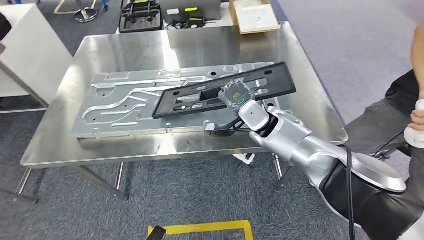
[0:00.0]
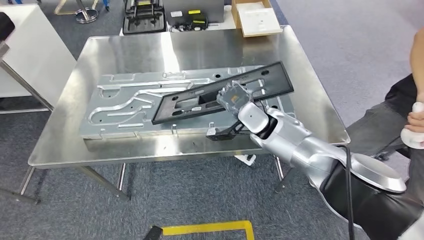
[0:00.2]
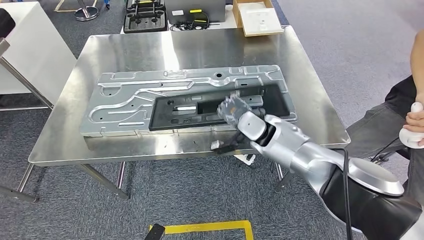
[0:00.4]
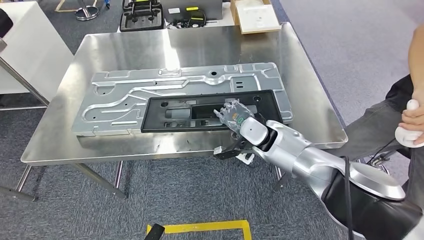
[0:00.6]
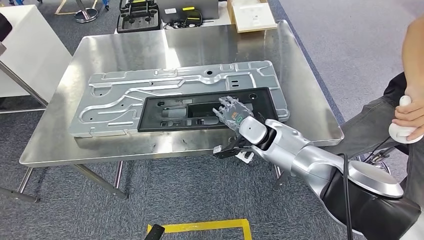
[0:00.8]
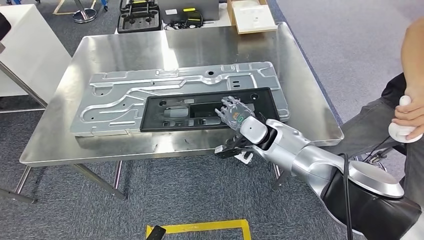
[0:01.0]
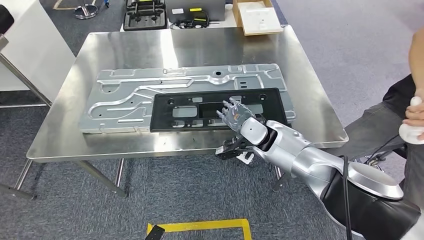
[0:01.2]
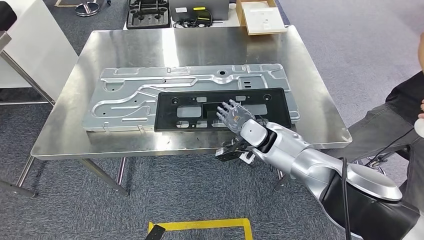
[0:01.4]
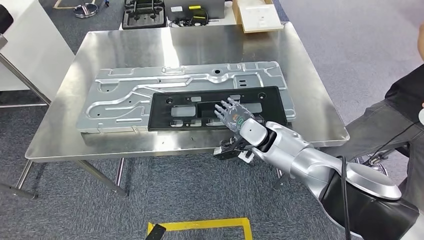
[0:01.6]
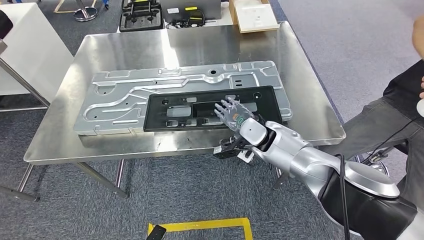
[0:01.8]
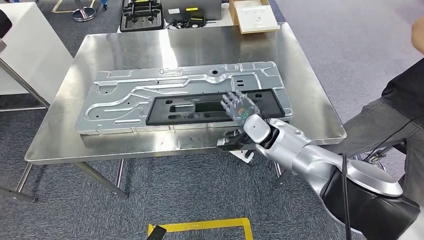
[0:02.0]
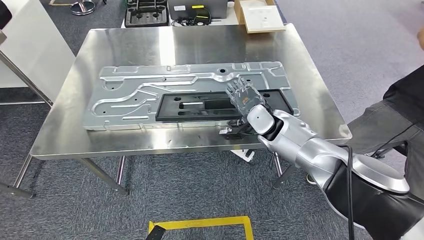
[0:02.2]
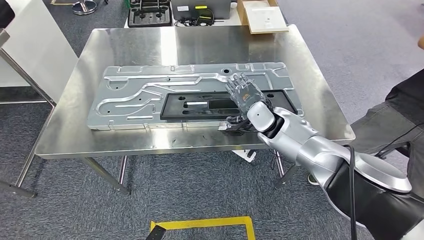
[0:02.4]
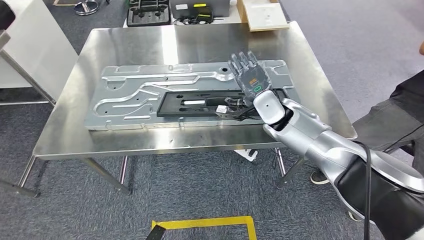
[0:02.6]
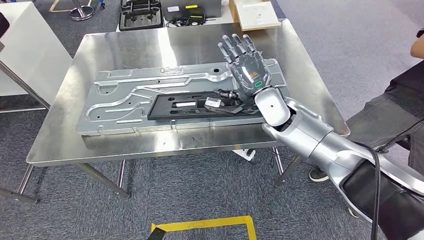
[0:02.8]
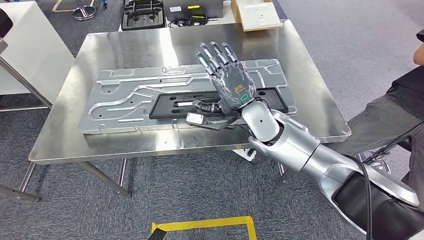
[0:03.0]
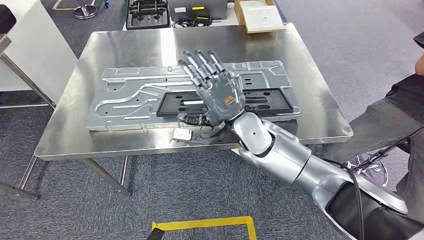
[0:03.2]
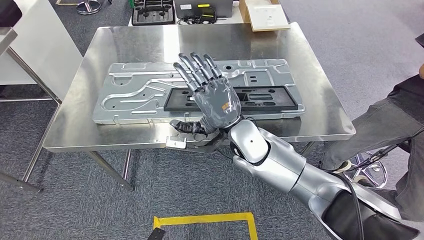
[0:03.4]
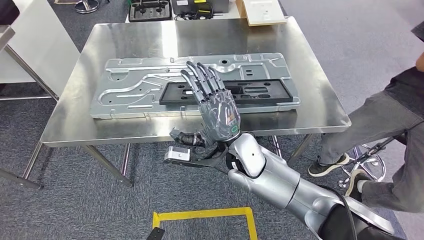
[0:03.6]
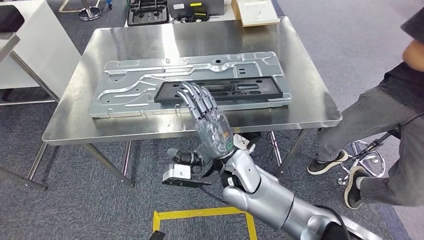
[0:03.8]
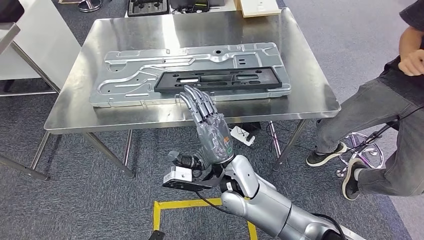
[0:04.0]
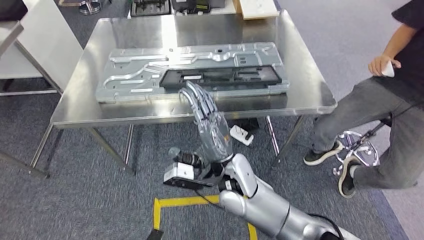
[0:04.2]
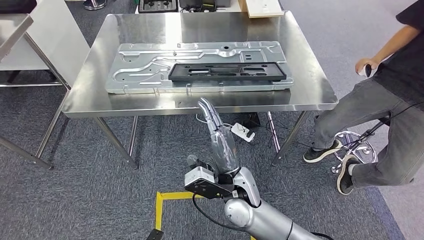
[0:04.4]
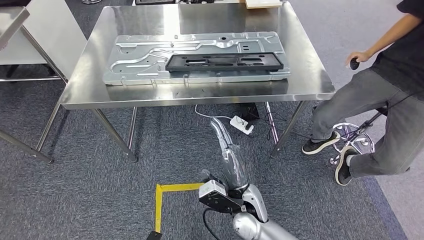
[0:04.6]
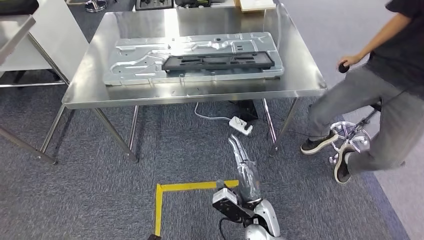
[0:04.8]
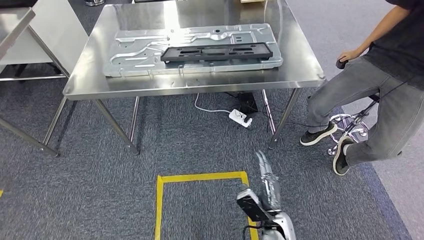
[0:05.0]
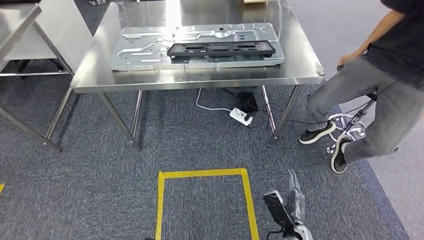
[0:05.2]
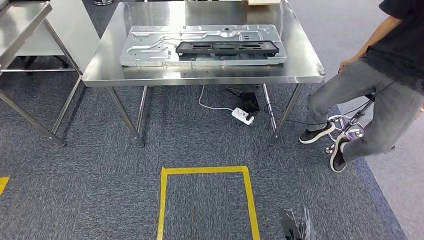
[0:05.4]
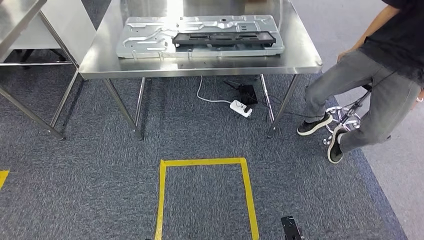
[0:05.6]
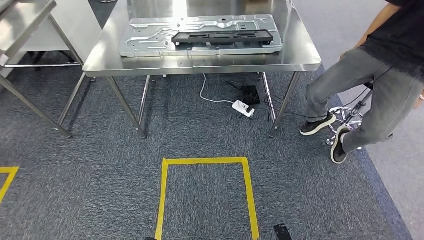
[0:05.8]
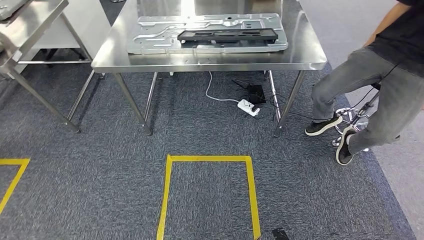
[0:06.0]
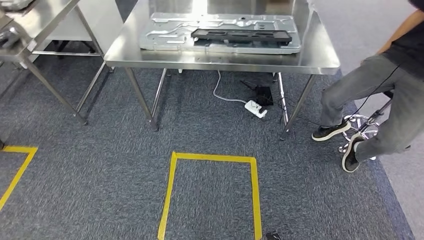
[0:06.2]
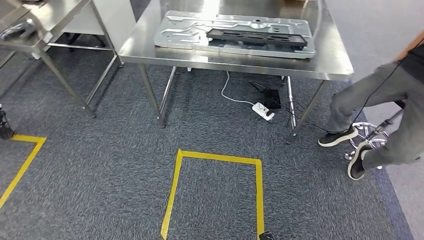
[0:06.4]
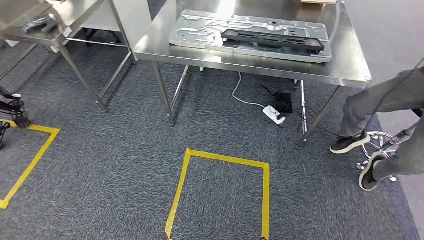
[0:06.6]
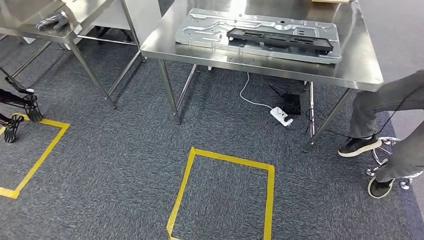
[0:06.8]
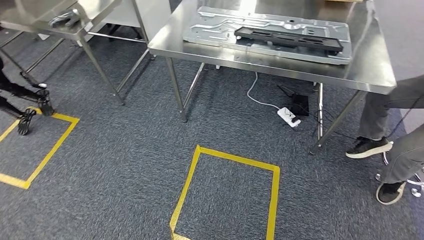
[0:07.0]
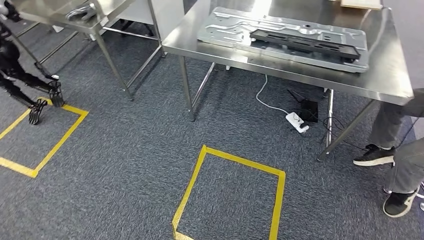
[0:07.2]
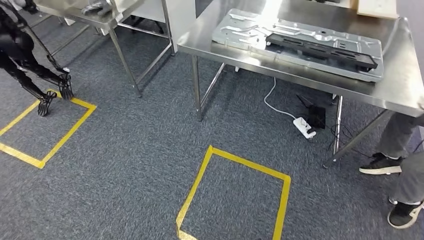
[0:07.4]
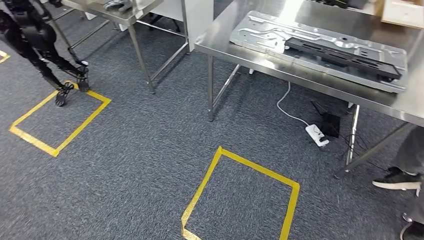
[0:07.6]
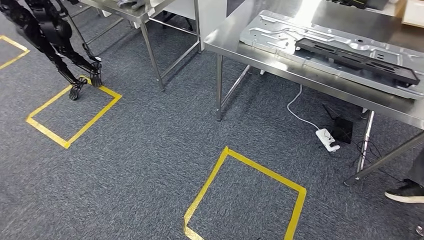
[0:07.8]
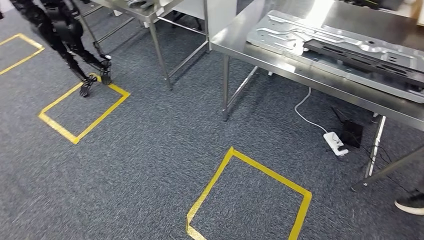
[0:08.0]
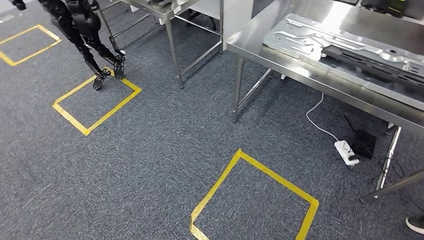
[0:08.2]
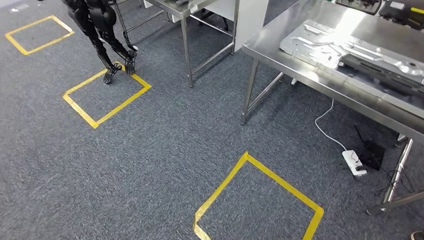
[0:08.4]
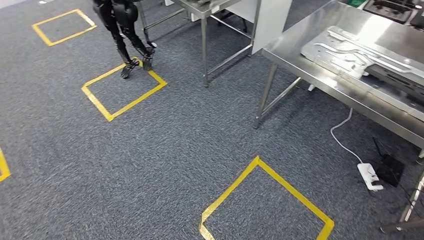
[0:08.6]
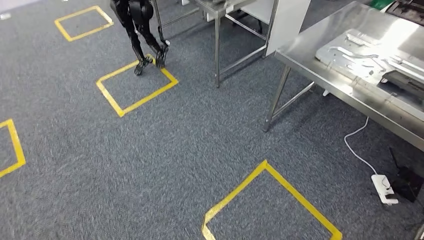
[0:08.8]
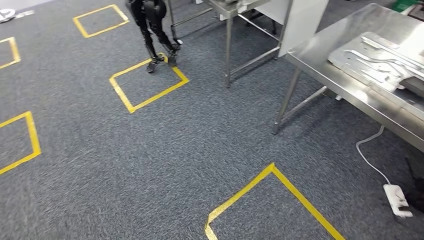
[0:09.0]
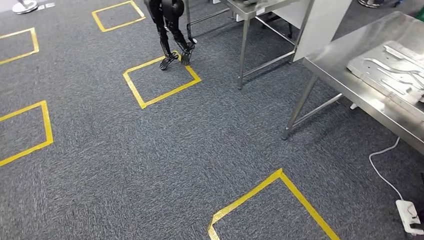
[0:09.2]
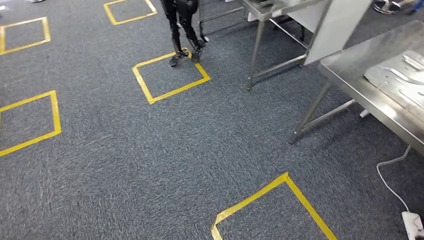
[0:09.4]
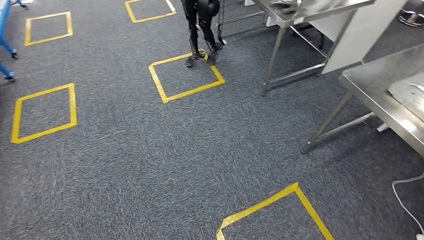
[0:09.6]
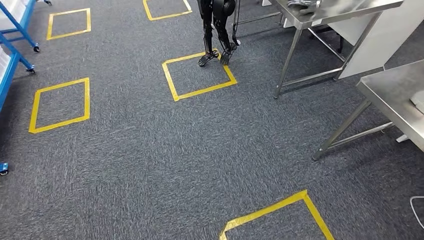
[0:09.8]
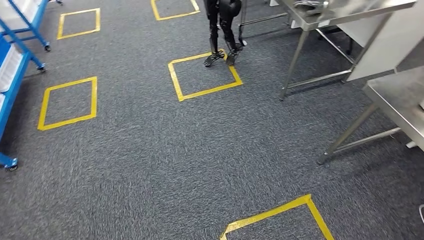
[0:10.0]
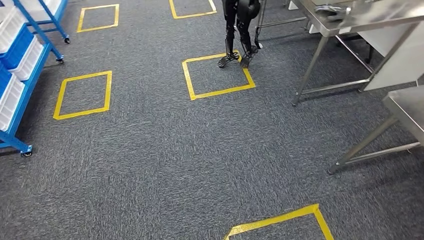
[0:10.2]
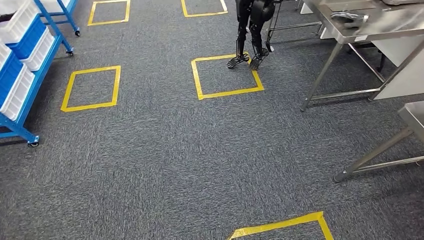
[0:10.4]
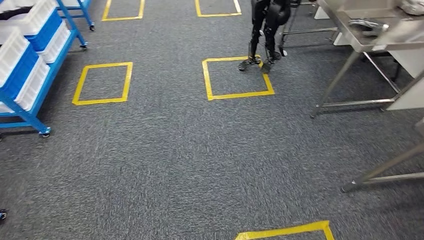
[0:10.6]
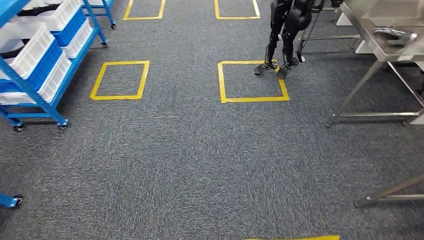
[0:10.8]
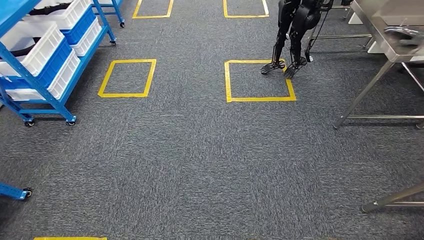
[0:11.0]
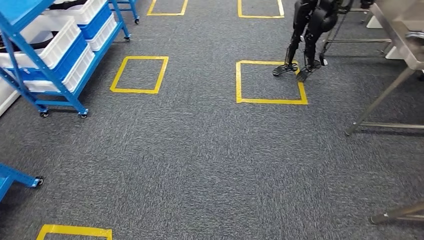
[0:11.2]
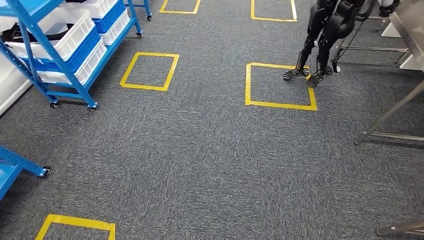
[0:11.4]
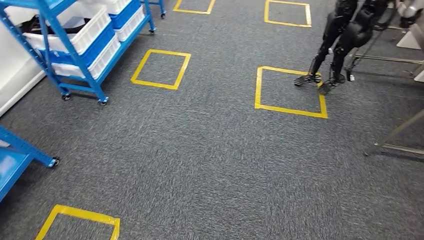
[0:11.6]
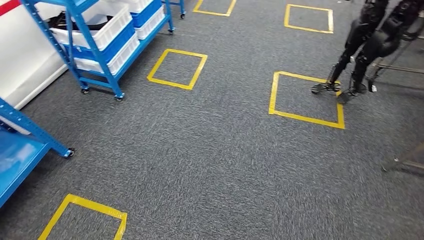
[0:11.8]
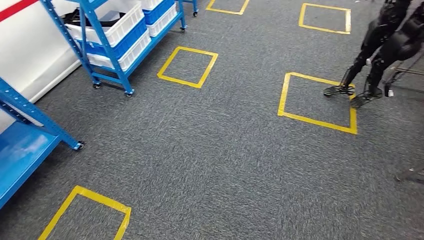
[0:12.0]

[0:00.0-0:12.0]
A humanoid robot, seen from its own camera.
Step, 0:00.0 to 0:05.6: Insert the large material into the corresponding slot on the workbench.

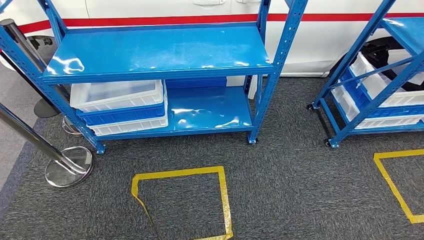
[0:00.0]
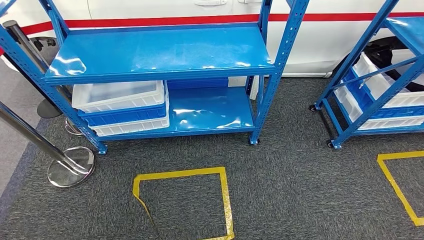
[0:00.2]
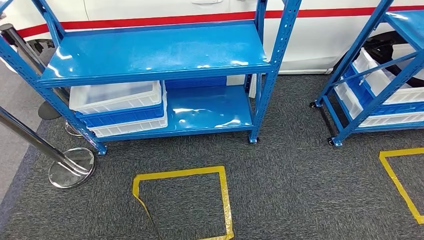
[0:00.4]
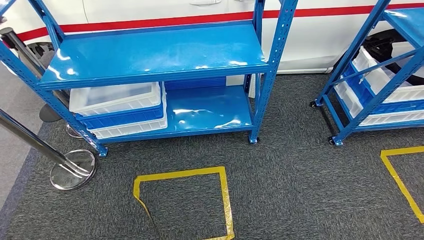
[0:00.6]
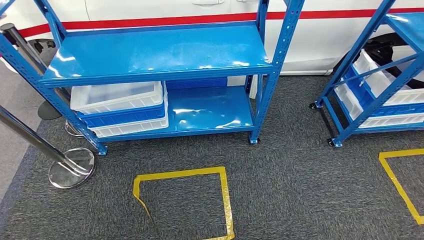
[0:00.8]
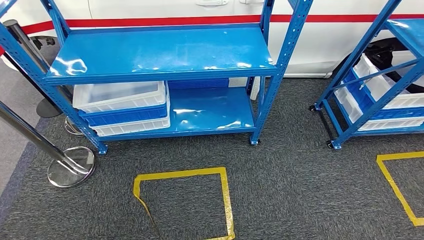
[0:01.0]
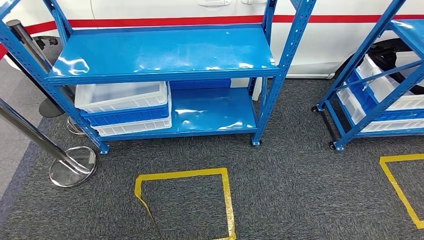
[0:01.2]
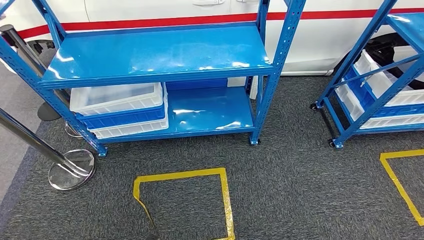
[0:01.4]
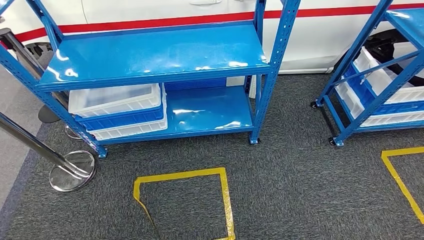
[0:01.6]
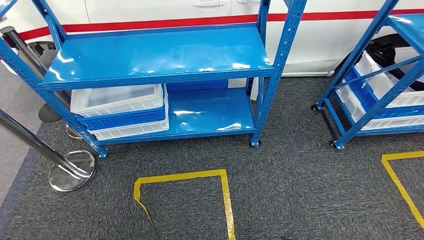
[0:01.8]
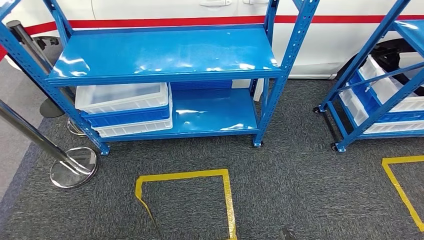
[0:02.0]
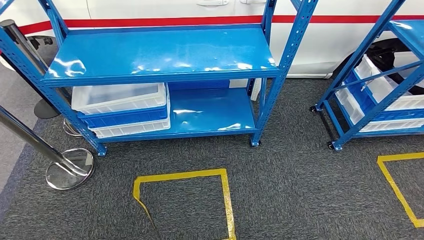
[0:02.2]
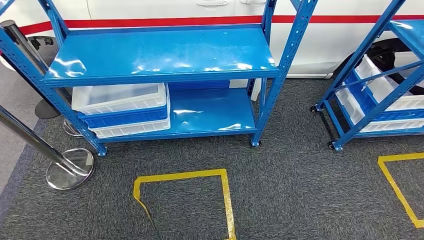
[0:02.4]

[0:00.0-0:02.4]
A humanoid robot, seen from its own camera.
Step, 0:00.0 to 0:02.2: Move to the initial position of the shelf.
0:01.2 to 0:02.4: The right hand heads to the right, covering approximately 5 cm, and travels forward and back again, about 5 cm each way; the left hand heads to the left, covering roughly 5 cm.

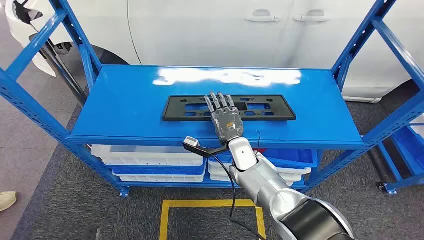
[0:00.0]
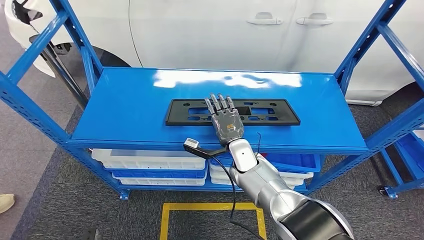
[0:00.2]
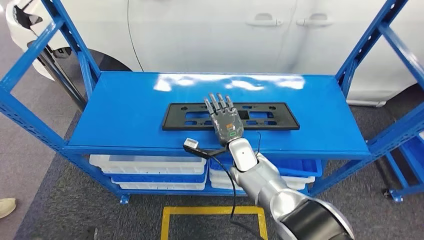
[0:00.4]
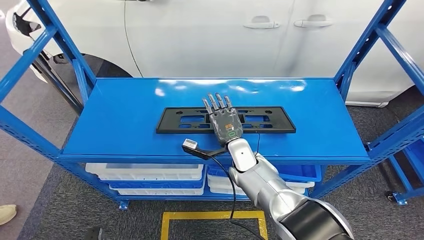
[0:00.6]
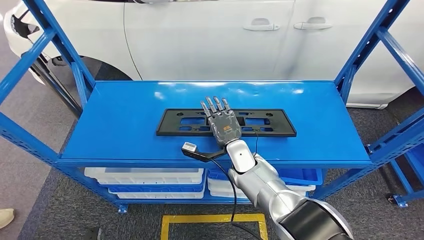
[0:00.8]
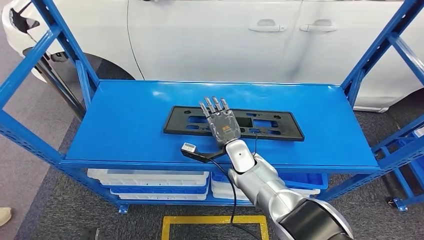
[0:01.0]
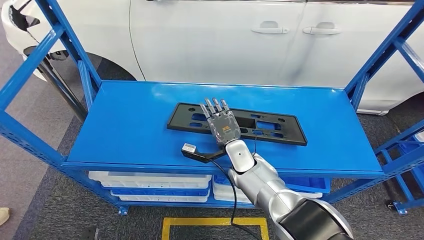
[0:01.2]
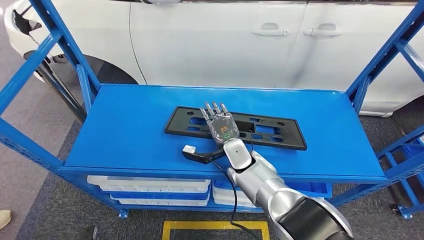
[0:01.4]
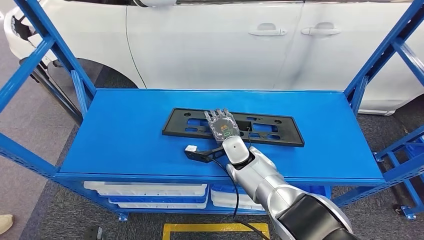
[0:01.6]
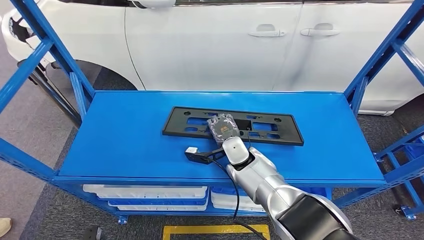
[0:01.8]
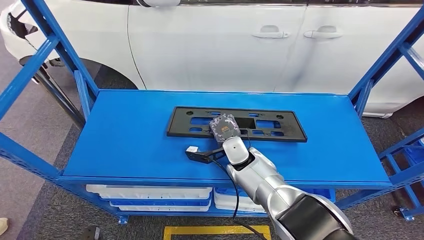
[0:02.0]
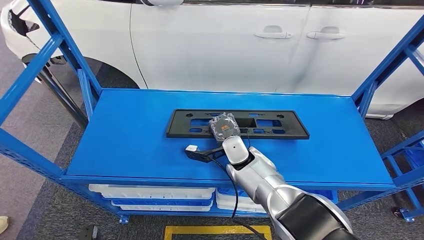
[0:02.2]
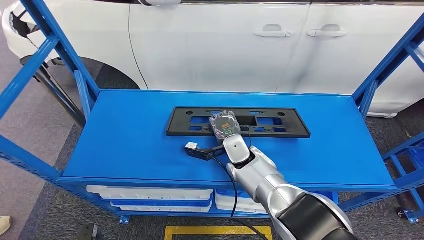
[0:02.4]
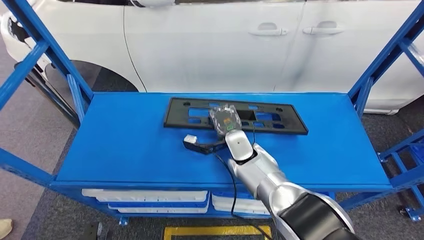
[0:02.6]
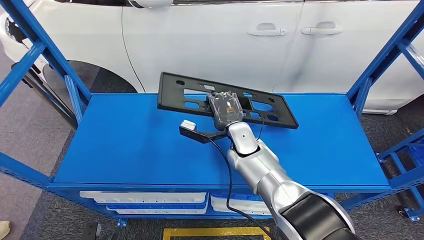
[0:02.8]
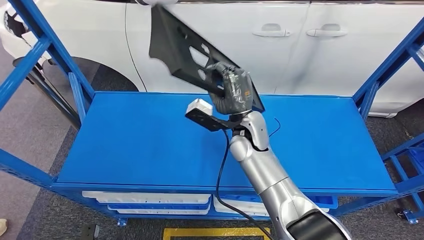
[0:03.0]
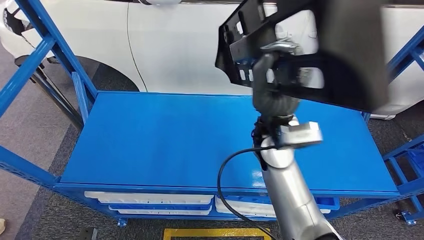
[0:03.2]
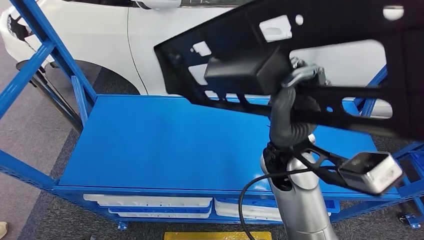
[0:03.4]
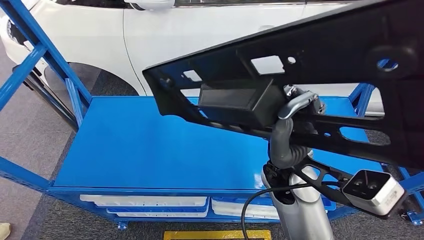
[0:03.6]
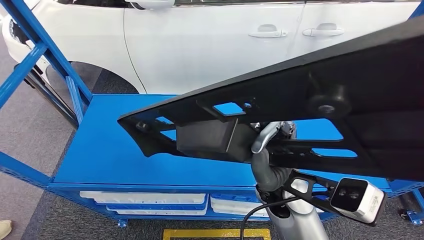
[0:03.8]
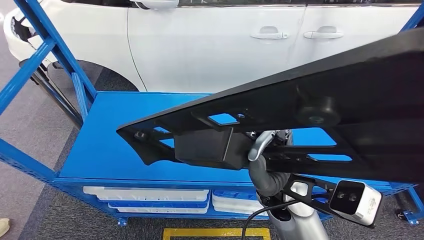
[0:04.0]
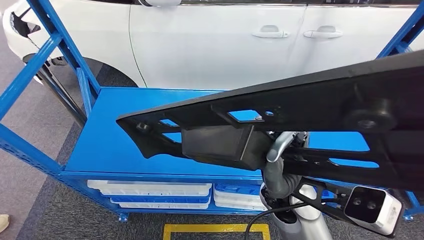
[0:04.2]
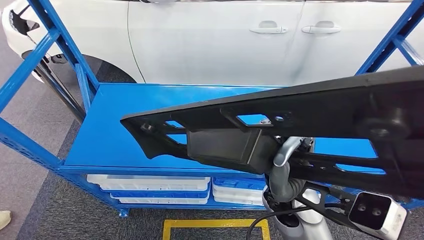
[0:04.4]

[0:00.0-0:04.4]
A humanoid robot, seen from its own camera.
Step, 0:00.0 to 0:03.0: Pick up the large material from the shelf.
